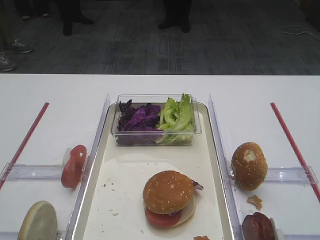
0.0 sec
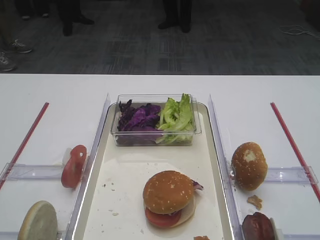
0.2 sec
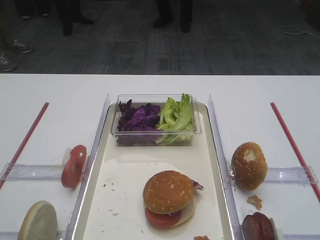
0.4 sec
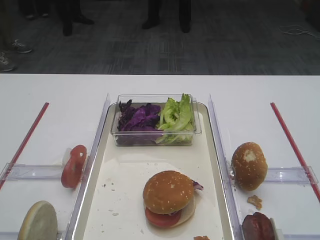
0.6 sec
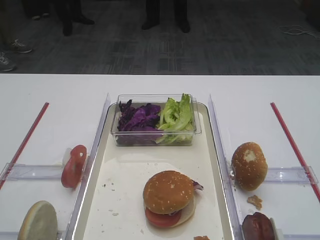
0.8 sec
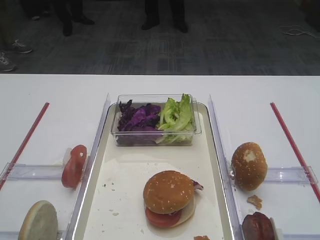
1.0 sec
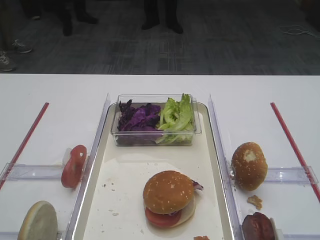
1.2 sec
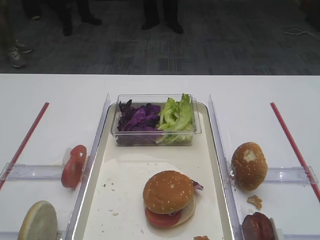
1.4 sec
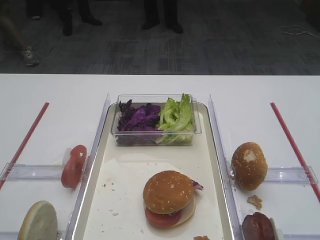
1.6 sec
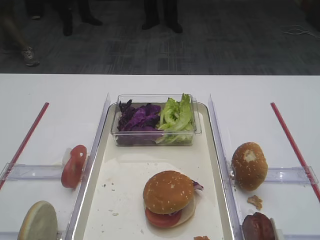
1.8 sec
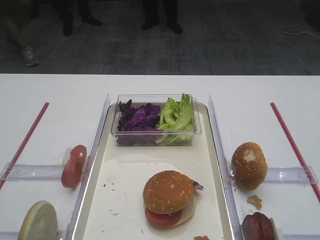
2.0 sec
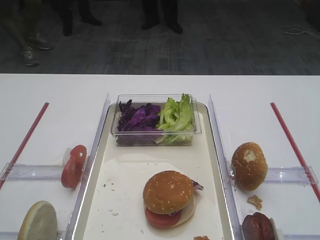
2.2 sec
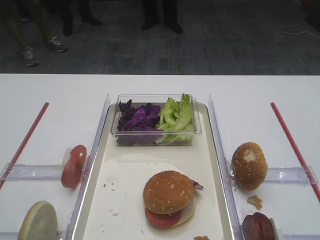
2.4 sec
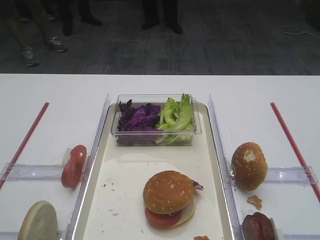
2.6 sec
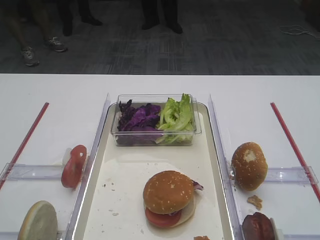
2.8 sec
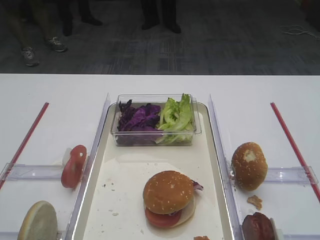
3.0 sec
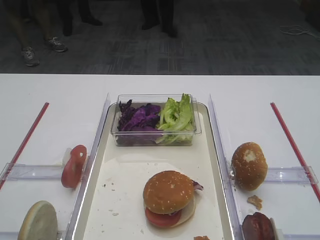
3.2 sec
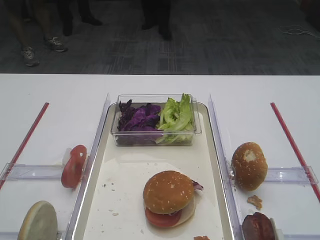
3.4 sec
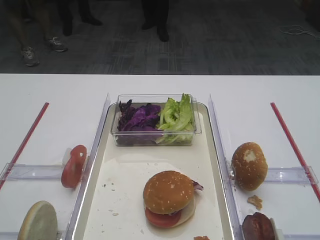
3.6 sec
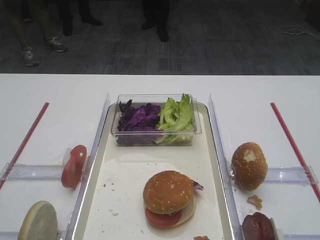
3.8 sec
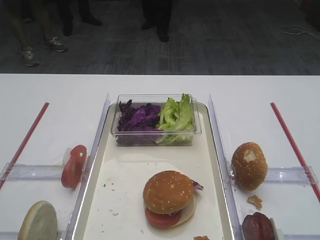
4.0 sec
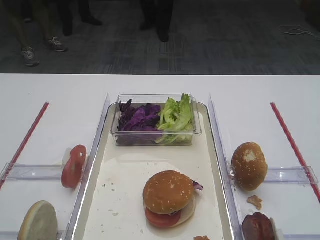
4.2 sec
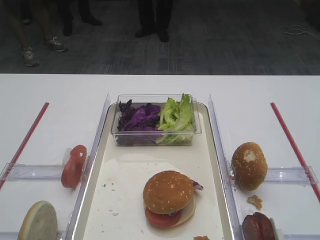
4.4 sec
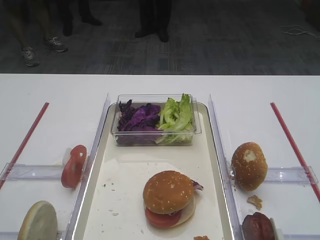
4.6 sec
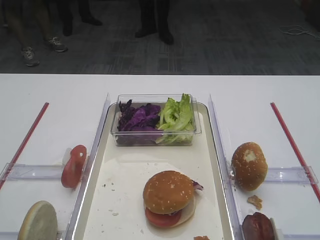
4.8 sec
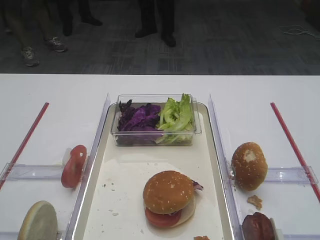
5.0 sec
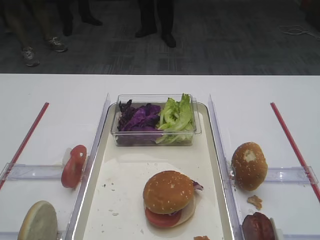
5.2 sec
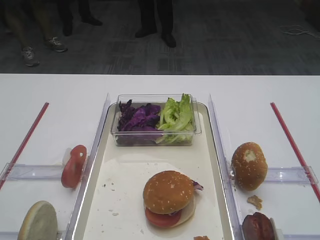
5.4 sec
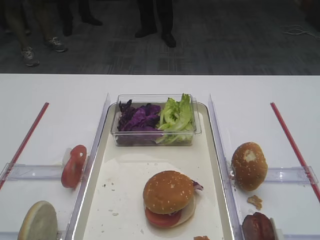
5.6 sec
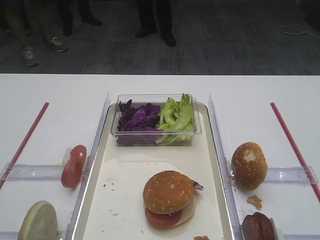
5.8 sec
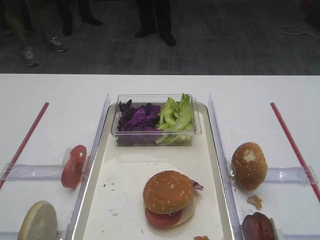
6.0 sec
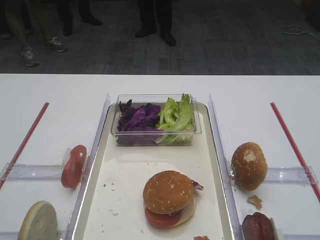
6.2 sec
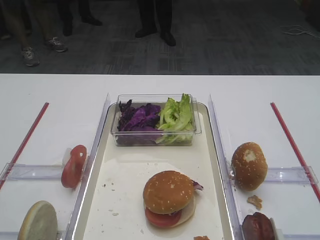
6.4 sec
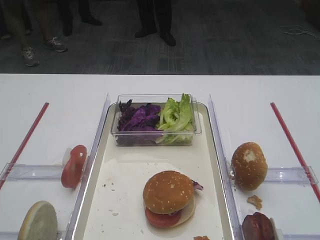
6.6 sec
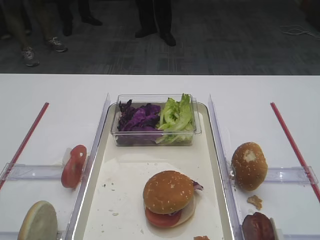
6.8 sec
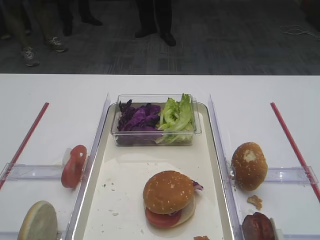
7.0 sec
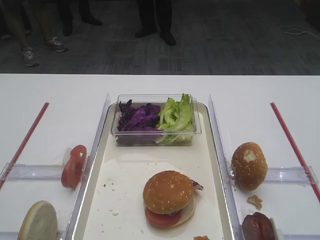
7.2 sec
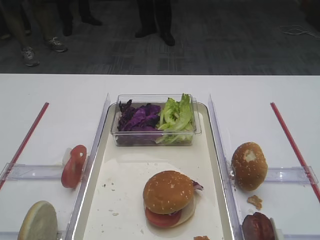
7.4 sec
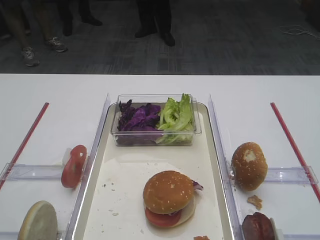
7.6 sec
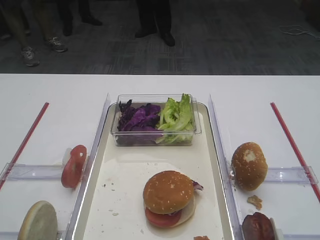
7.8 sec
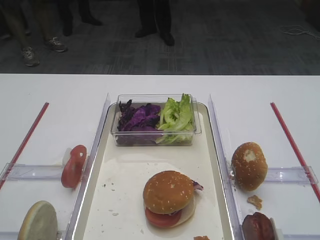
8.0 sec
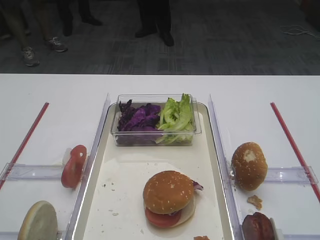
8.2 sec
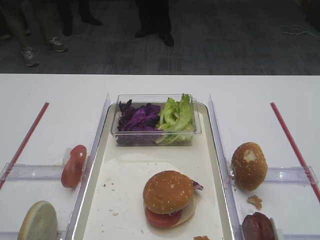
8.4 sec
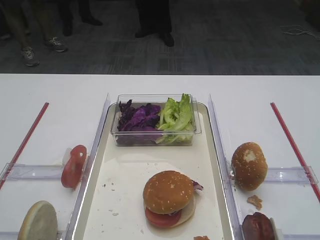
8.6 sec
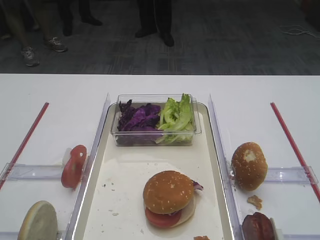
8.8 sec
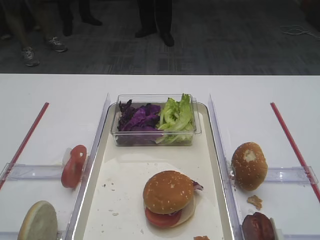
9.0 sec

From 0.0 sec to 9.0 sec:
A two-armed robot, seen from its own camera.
From 1.6 sec to 9.0 sec: Neither gripper changes place.

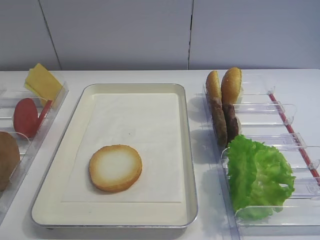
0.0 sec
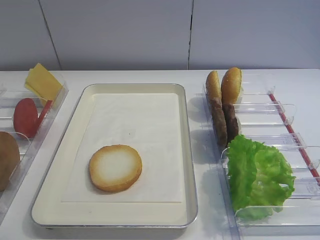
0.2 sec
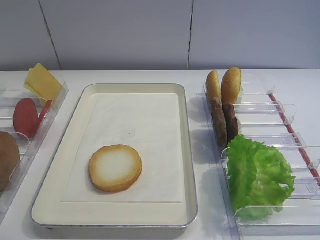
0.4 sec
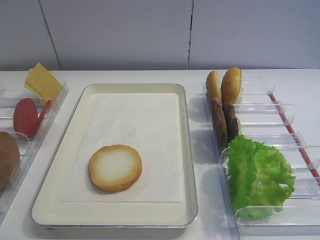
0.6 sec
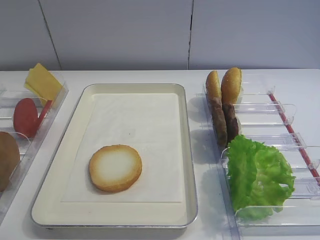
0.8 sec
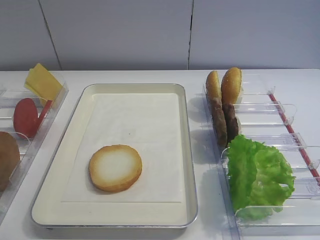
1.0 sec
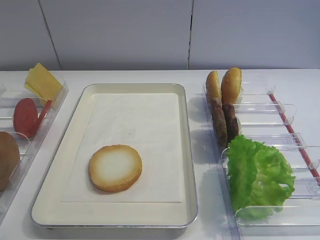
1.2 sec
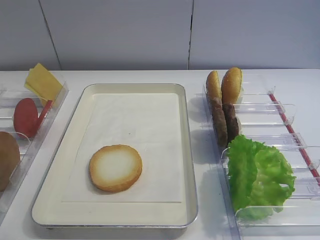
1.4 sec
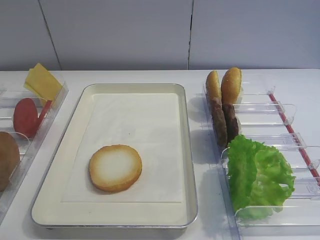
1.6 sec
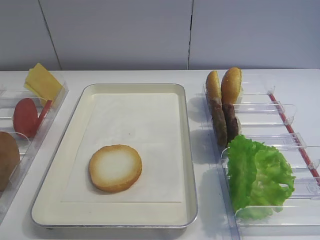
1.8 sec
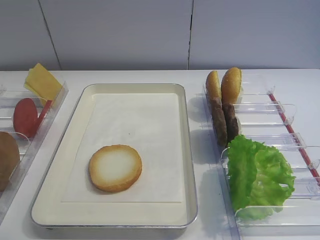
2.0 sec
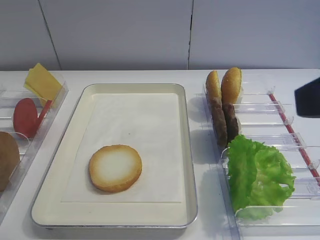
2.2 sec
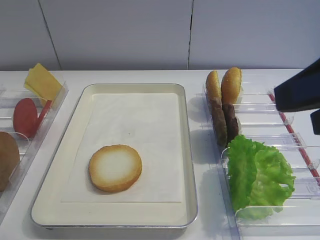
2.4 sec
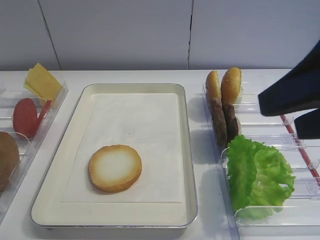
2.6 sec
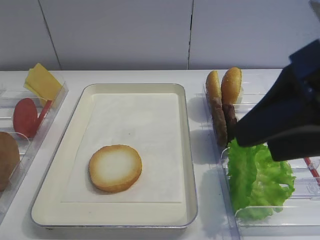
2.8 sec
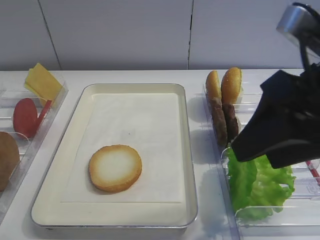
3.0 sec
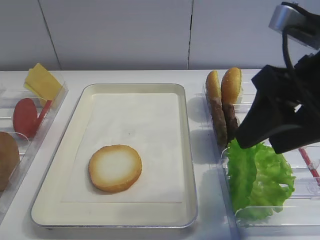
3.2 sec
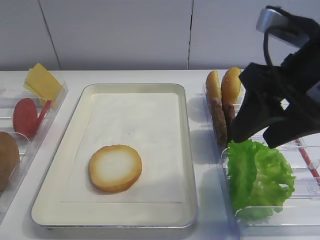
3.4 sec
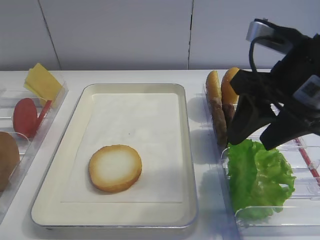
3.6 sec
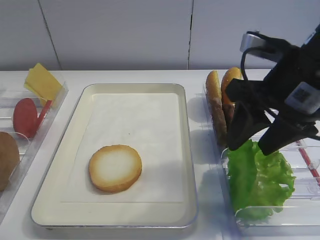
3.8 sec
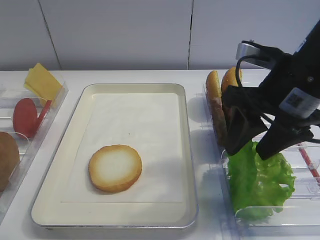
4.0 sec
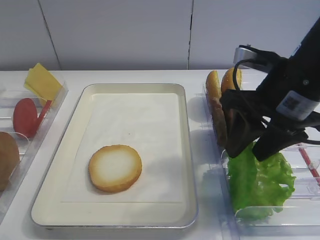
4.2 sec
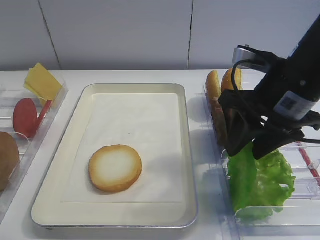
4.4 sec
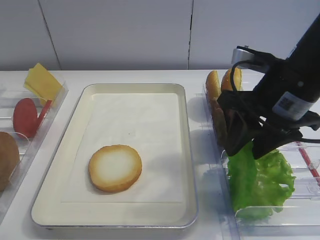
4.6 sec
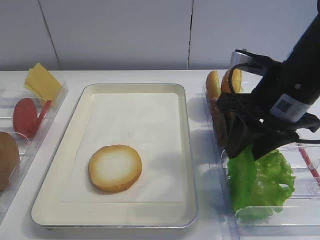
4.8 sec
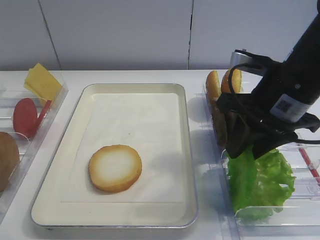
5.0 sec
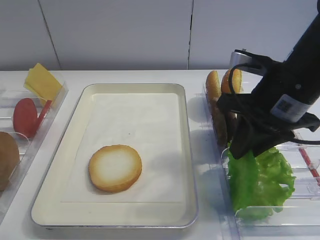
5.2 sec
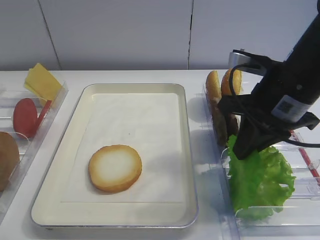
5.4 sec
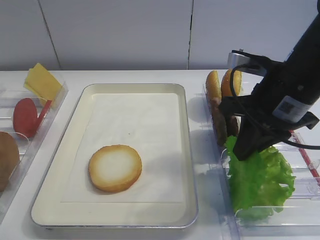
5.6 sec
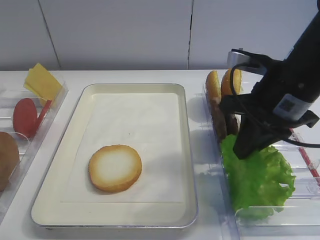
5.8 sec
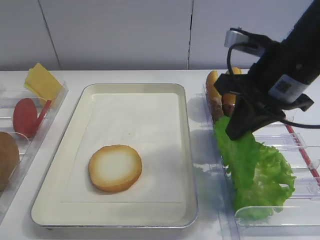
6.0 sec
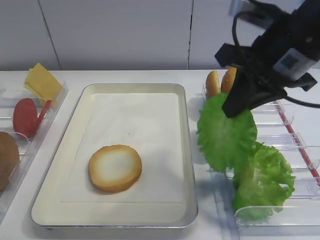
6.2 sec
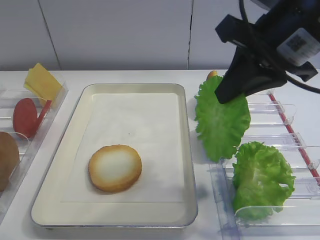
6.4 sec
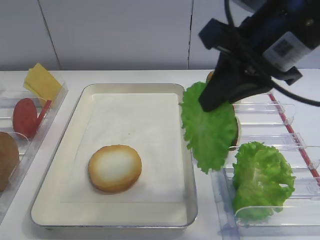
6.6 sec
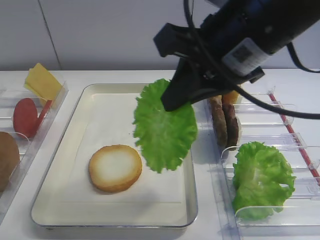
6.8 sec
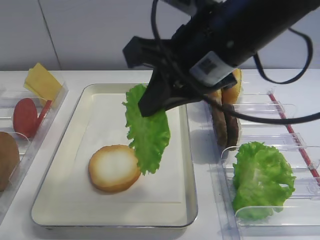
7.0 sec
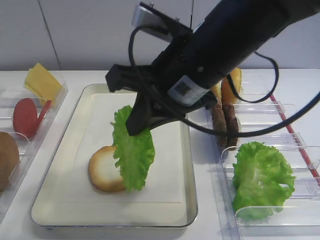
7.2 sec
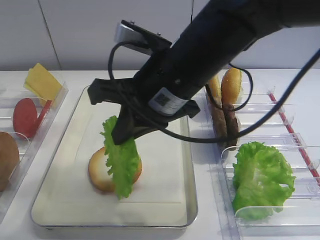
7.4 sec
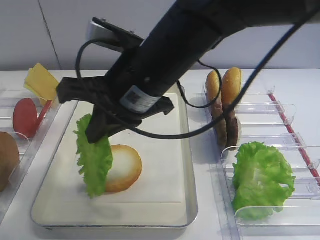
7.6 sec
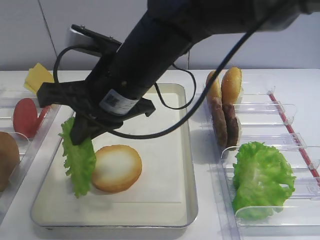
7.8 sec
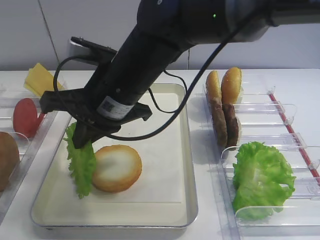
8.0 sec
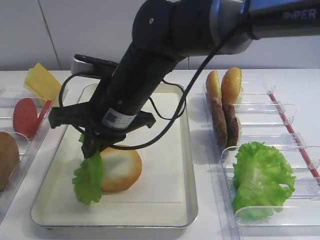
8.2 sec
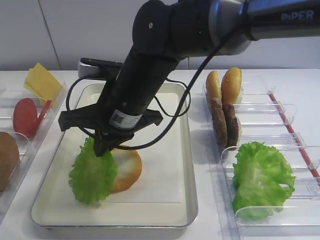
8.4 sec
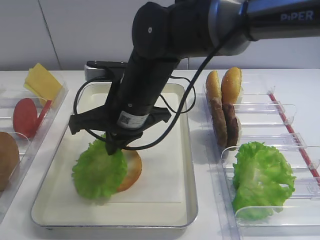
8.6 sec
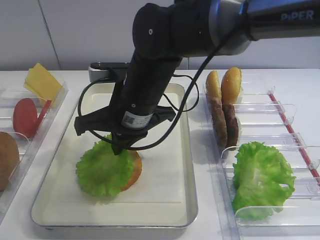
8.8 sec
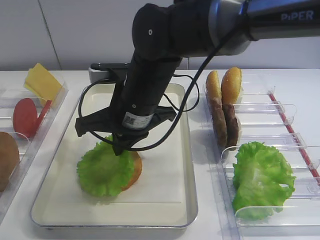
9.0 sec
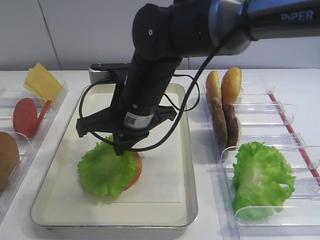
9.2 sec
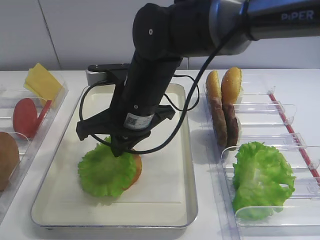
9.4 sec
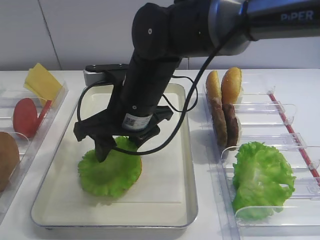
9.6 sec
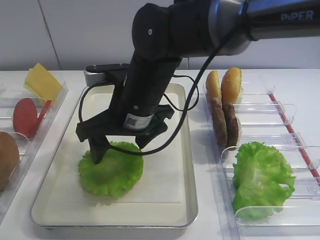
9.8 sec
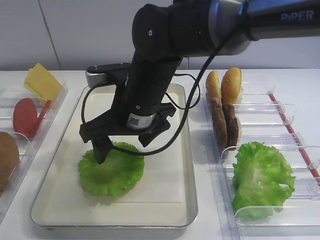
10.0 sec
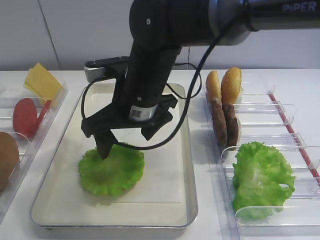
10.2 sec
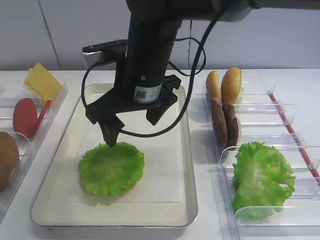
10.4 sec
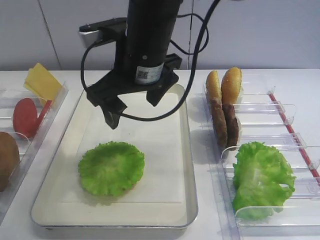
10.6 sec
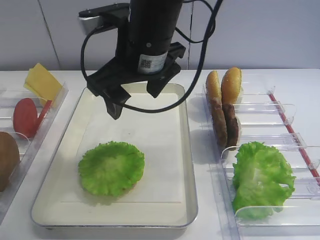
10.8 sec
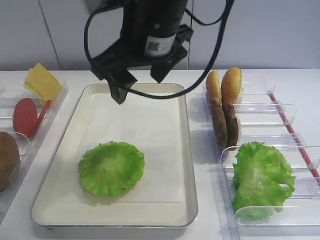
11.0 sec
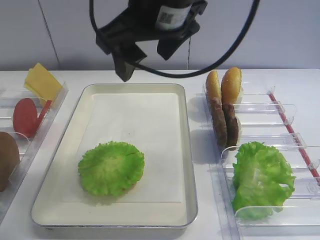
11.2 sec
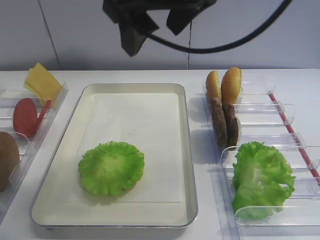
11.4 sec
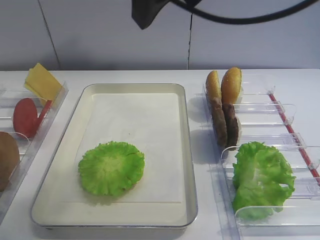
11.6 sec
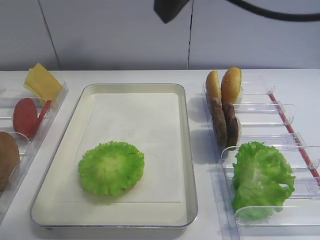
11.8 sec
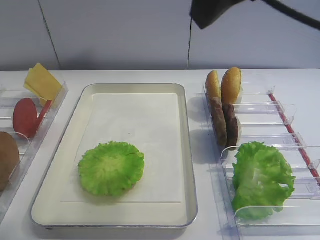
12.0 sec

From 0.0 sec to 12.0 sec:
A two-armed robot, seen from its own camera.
Step, from 0.0 sec to 6.0 sec: Pick up the lettuce leaf with the right gripper.
Step, from 6.2 sec to 10.0 sec: Place the lettuce leaf on the bread slice with the right gripper.
From 1.6 sec to 3.0 sec: The right gripper moves forward and to the left, approximately 15 cm.
From 3.0 sec to 4.4 sec: The right gripper heads forward and downward, covering roughly 10 cm.
From 4.4 sec to 6.0 sec: The right gripper closes up.
From 6.0 sec to 7.6 sec: The right gripper travels to the left by roughly 15 cm.
From 7.6 sec to 9.0 sec: The right gripper travels downward by some 5 cm.
From 9.0 sec to 10.4 sec: The right gripper opens up.
From 10.4 sec to 12.0 sec: The right gripper goes roughly 25 cm upward, to the right and backward.

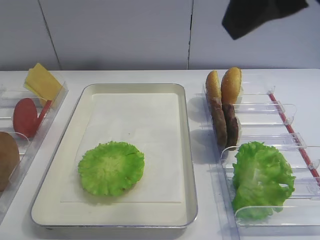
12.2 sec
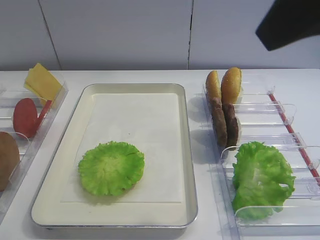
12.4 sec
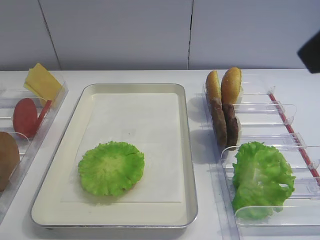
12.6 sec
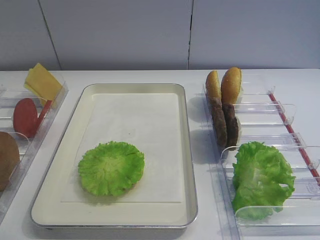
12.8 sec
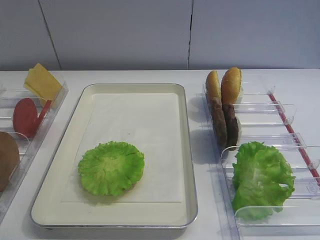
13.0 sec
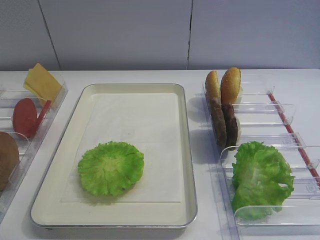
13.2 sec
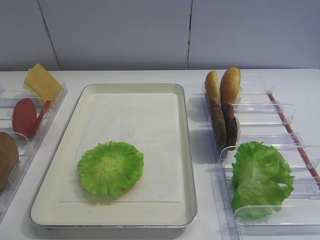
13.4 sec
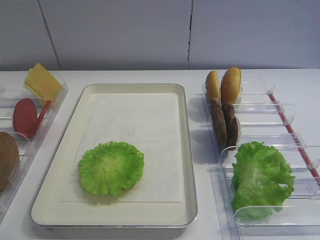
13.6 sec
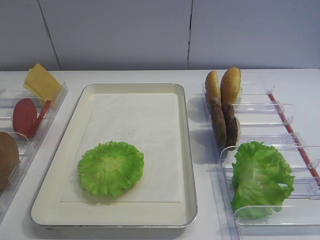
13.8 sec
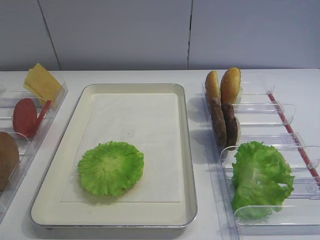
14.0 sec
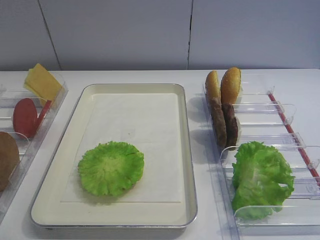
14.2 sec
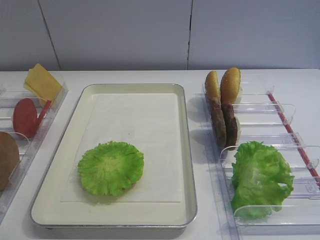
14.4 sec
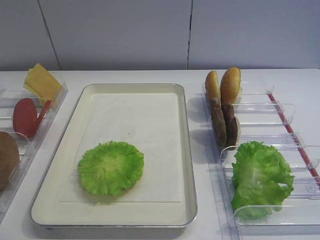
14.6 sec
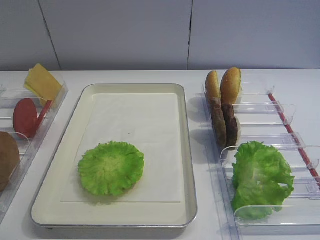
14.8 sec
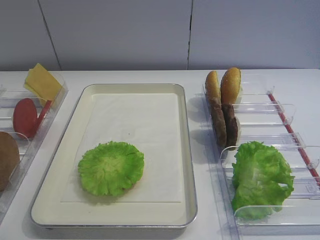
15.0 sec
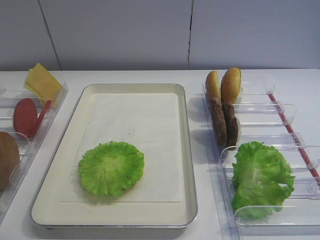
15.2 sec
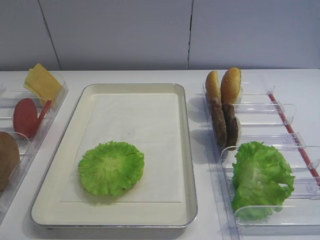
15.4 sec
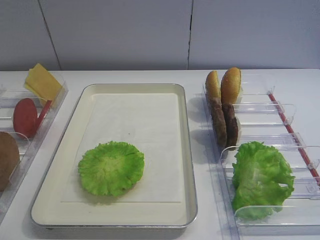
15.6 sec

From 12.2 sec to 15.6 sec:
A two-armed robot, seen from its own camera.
From 12.2 sec to 13.8 sec: The right gripper is displaced backward, to the right and downward by some 25 cm.
